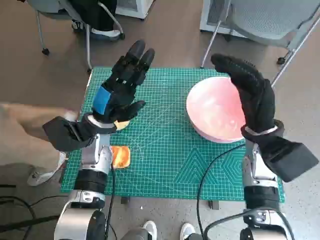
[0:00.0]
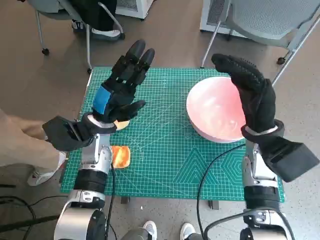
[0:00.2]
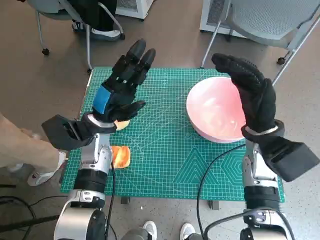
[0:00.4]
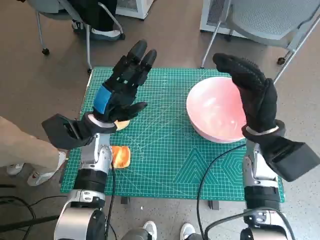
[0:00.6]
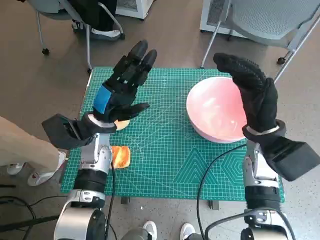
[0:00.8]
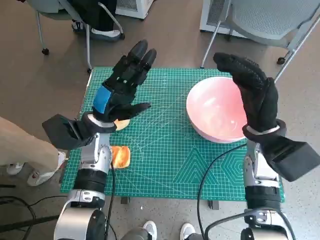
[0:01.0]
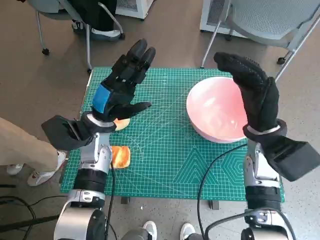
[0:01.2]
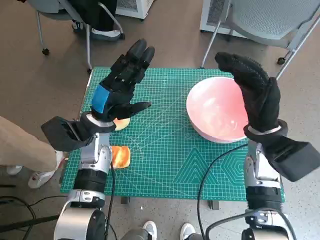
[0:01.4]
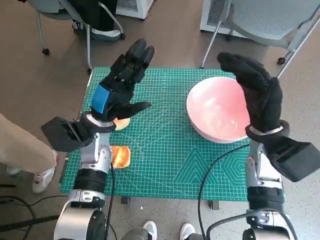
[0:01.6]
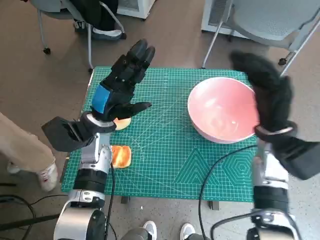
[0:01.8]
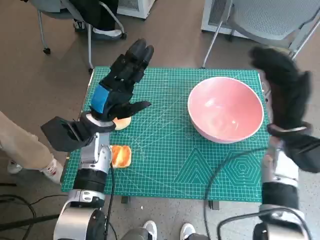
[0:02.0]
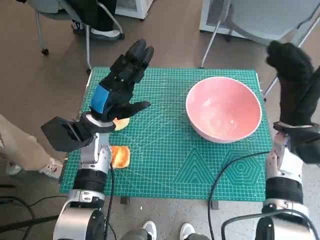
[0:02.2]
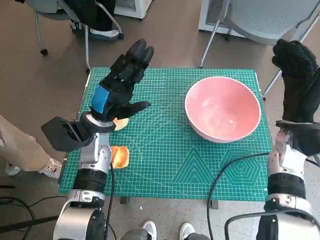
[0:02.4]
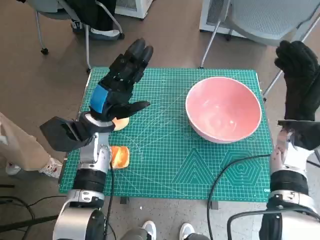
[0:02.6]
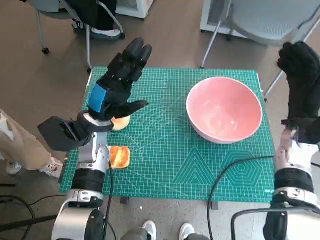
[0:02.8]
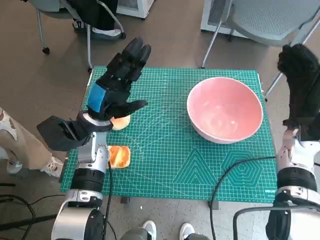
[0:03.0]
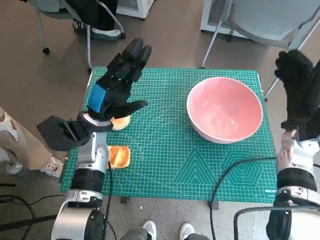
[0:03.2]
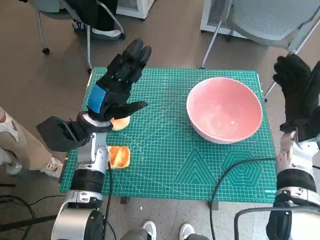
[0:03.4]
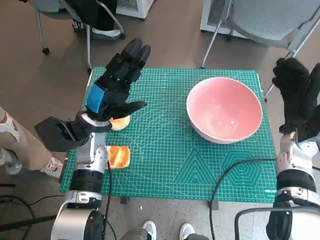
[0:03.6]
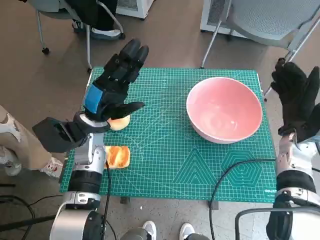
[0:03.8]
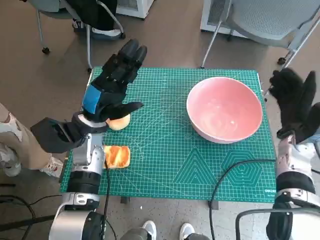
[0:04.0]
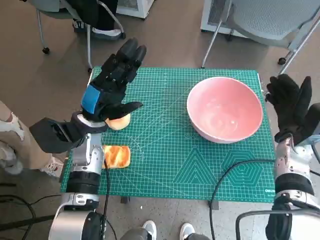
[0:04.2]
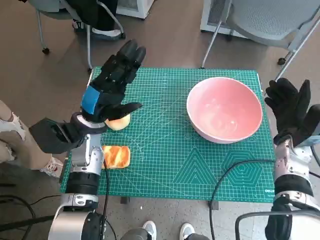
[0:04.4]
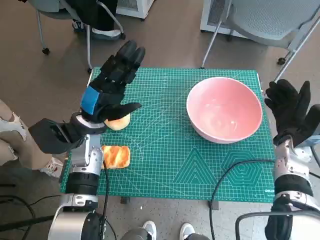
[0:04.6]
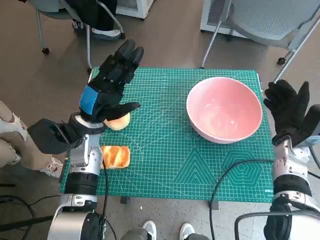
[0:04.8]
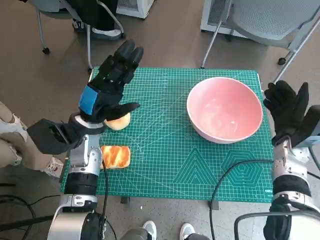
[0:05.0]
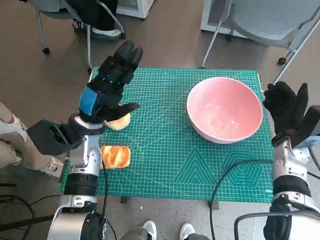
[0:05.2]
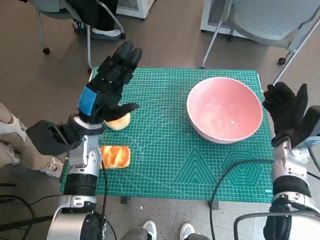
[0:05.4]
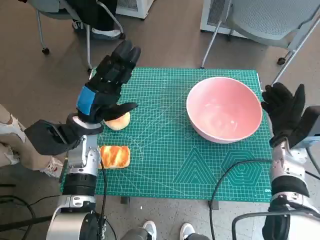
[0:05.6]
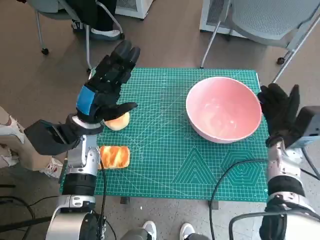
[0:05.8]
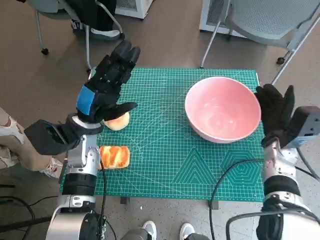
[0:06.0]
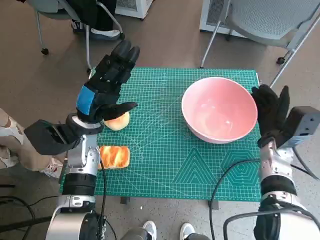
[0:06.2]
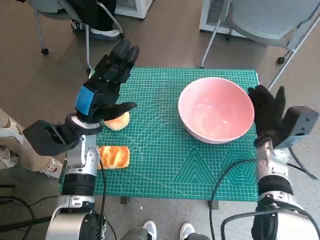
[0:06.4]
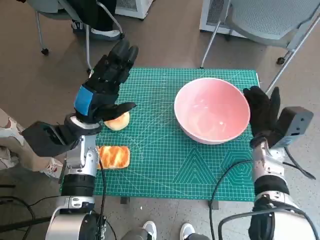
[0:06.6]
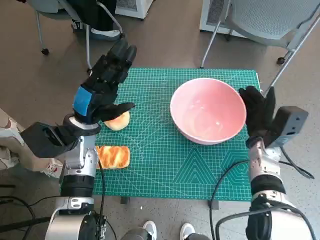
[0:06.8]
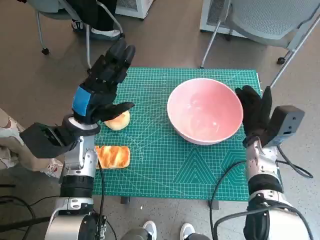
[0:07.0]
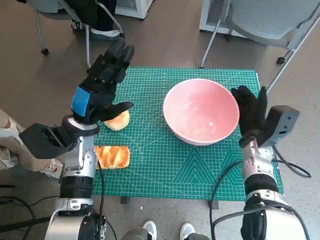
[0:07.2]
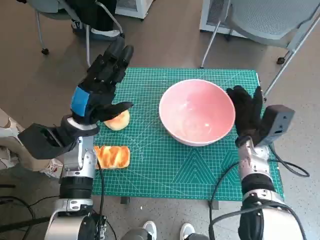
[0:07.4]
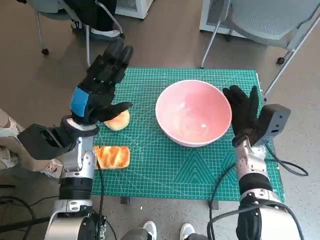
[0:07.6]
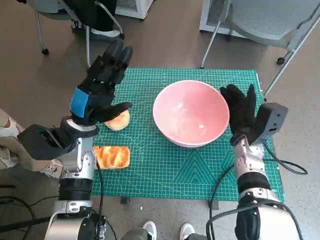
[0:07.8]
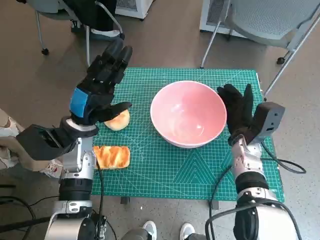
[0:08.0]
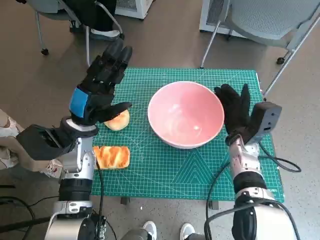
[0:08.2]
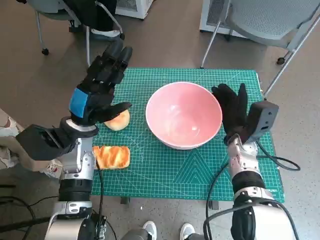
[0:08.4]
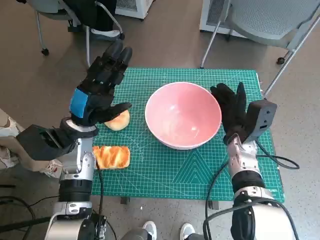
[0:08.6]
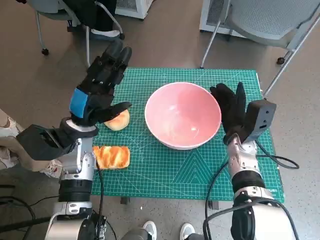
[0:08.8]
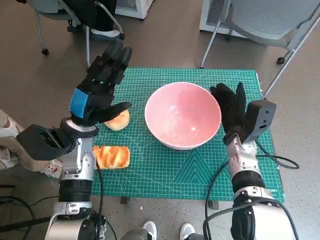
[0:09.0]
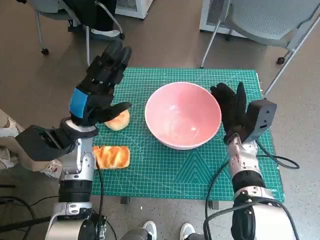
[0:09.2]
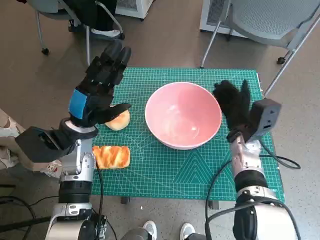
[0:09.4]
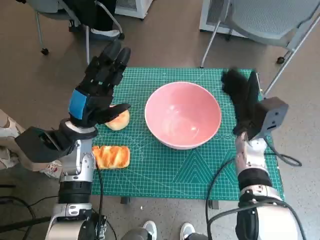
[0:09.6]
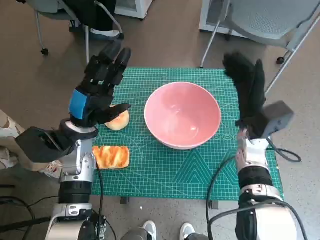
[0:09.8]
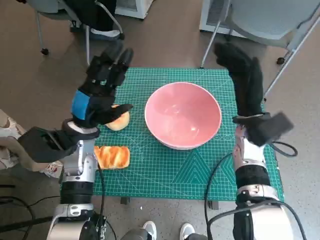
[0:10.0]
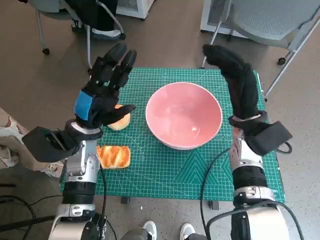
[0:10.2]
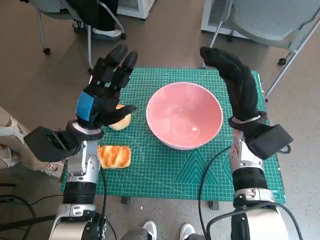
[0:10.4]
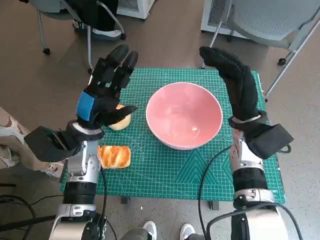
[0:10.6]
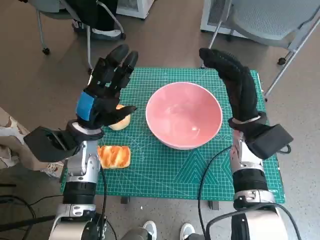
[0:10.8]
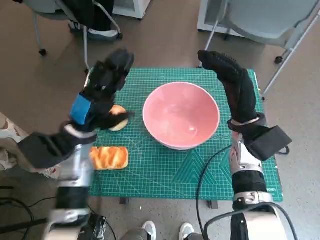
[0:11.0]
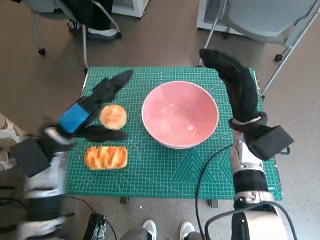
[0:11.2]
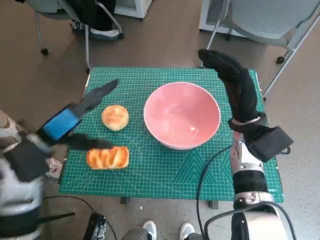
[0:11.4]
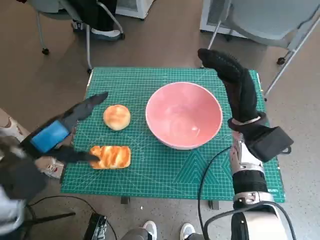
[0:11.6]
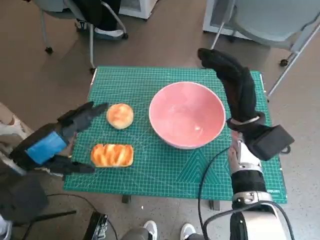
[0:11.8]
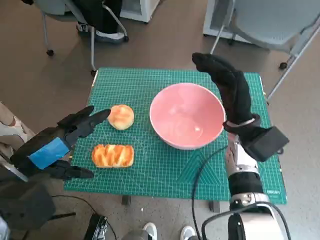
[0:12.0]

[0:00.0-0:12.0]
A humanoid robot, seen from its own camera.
Step, 0:00.0 to 0:09.4: Move the pink bowl to the center of table with right hand.
0:01.6 to 0:03.0: The right hand heads to the right, covering some 10 cm.
0:04.4 to 0:06.0: The hands stay close to where they were, moving slightly.
0:06.0 to 0:07.6: The right hand is displaced to the left by about 5 cm.
0:07.6 to 0:09.0: The hands make only small movements.
0:09.0 to 0:10.4: The right hand shifts approximately 5 cm upward.
0:10.4 to 0:12.0: The left hand heads backward, upward and to the left, covering approximately 15 cm.

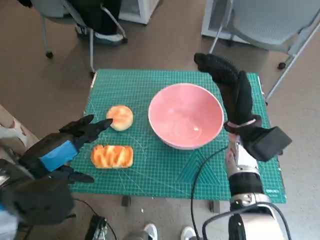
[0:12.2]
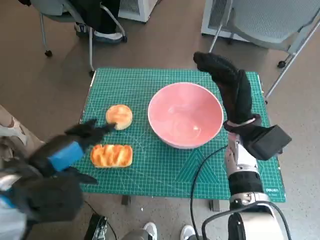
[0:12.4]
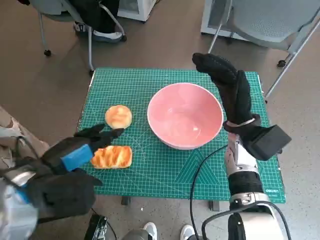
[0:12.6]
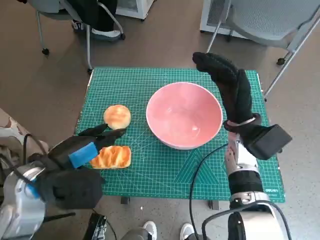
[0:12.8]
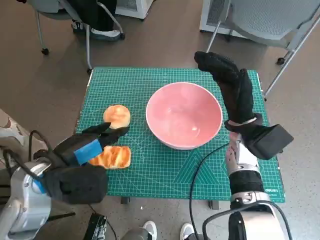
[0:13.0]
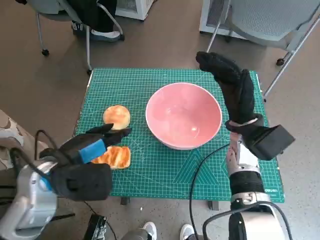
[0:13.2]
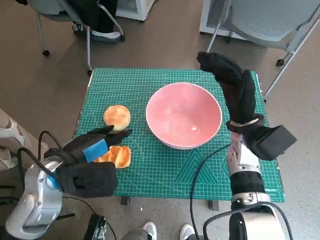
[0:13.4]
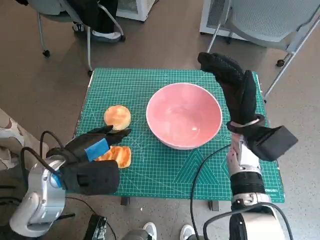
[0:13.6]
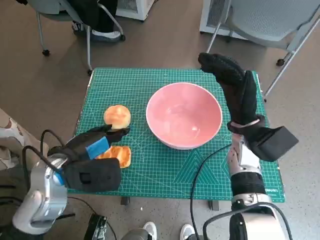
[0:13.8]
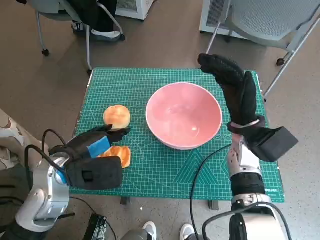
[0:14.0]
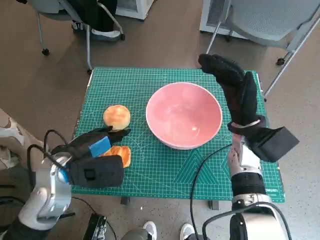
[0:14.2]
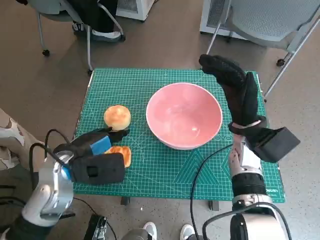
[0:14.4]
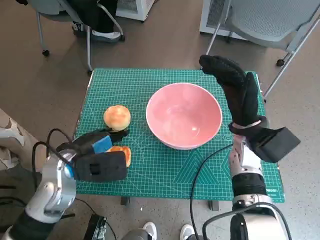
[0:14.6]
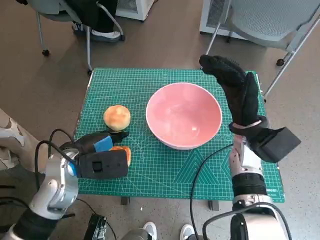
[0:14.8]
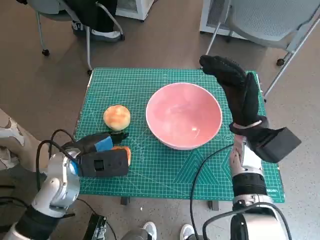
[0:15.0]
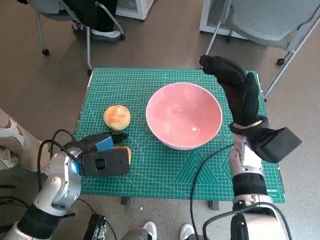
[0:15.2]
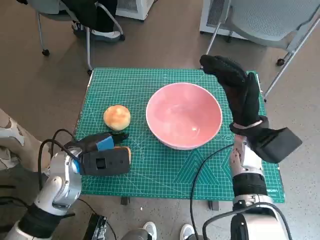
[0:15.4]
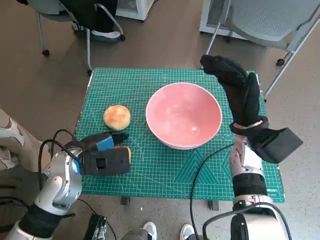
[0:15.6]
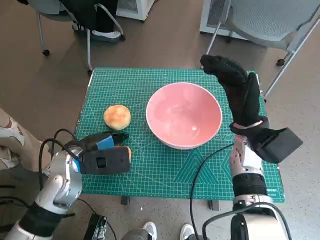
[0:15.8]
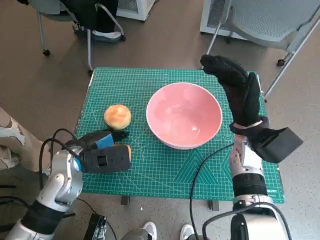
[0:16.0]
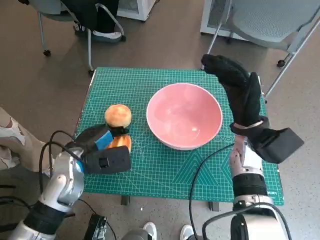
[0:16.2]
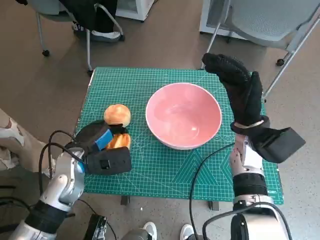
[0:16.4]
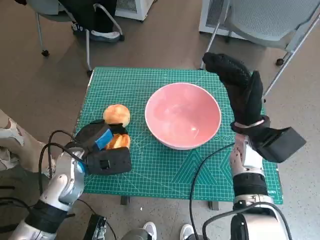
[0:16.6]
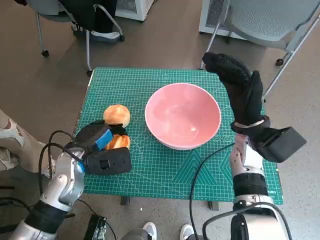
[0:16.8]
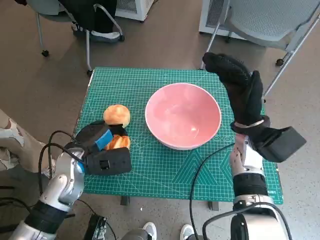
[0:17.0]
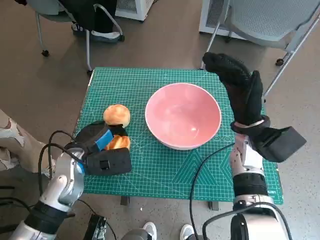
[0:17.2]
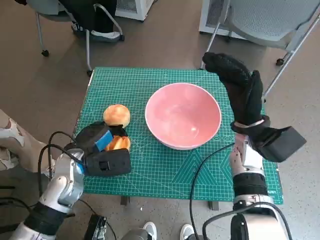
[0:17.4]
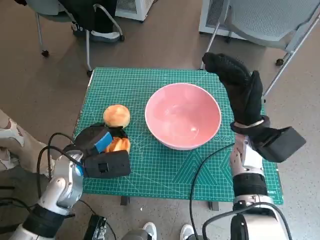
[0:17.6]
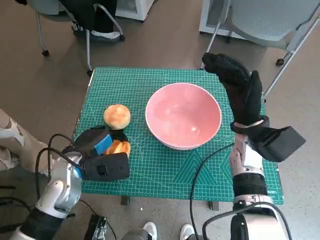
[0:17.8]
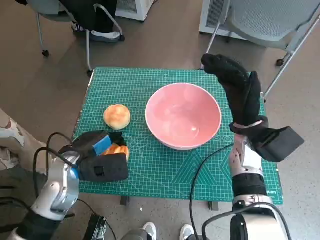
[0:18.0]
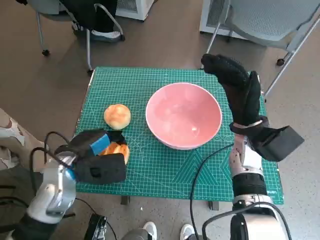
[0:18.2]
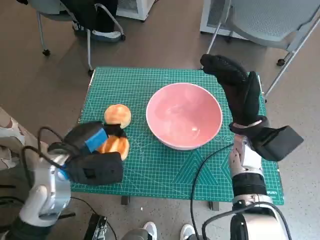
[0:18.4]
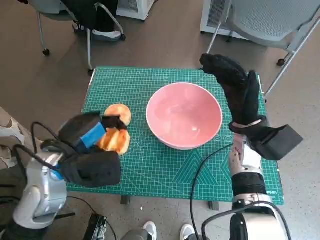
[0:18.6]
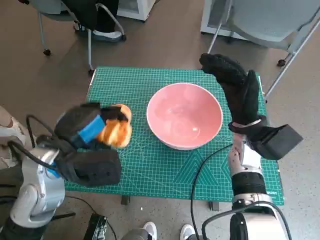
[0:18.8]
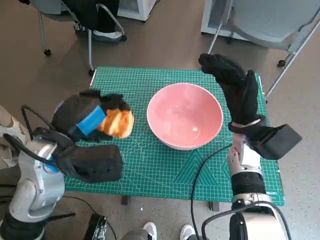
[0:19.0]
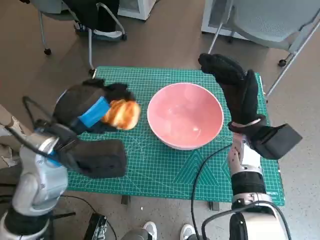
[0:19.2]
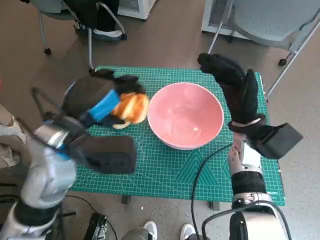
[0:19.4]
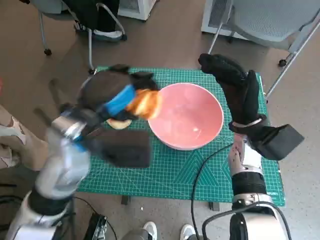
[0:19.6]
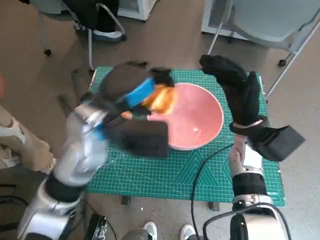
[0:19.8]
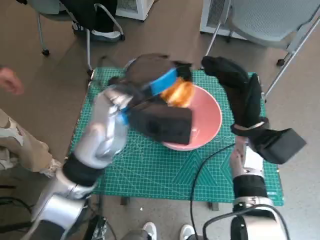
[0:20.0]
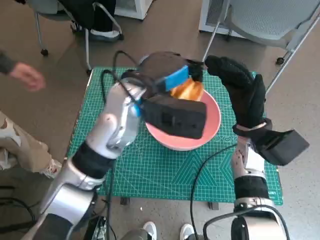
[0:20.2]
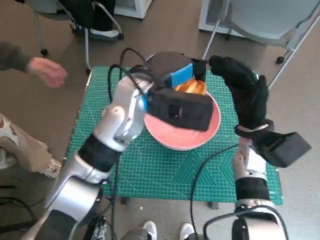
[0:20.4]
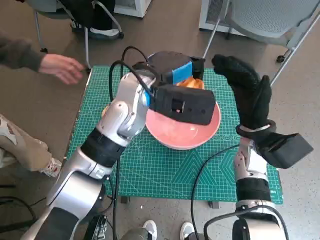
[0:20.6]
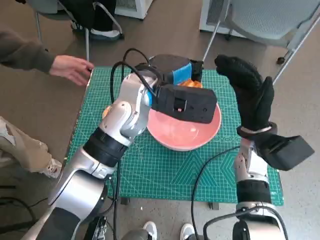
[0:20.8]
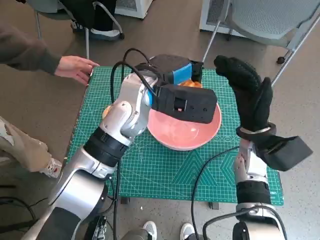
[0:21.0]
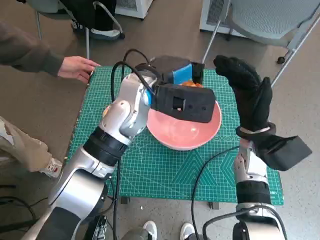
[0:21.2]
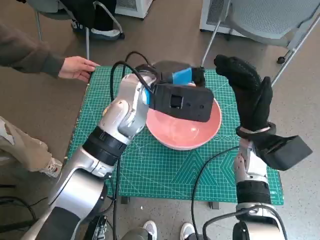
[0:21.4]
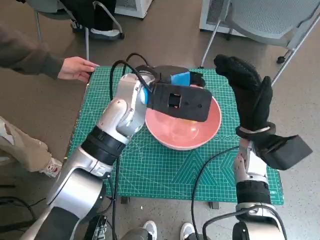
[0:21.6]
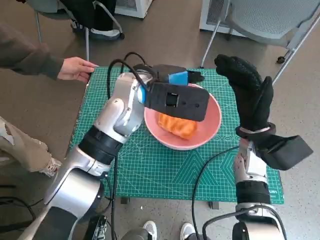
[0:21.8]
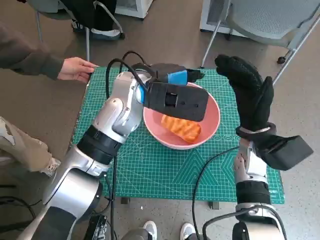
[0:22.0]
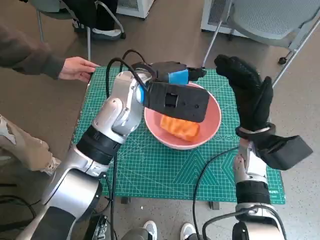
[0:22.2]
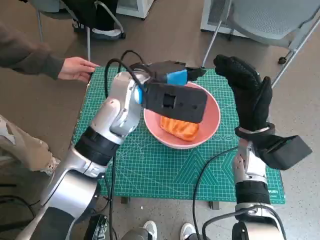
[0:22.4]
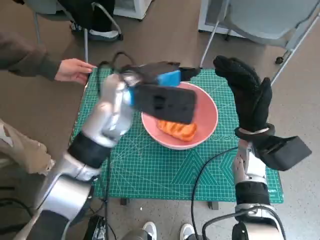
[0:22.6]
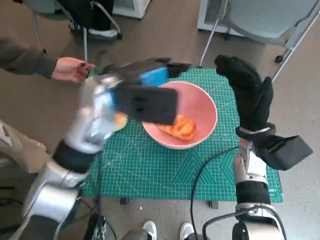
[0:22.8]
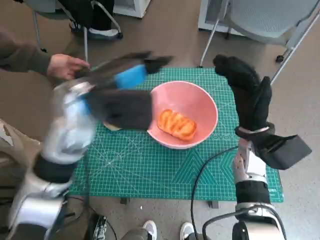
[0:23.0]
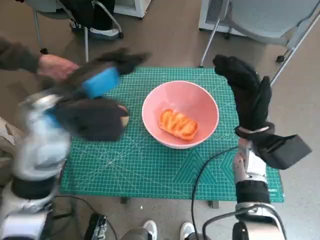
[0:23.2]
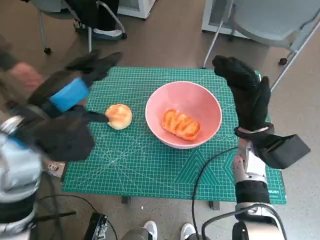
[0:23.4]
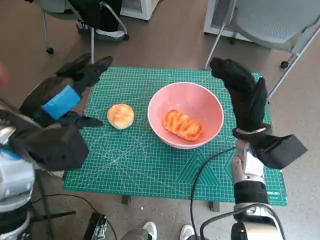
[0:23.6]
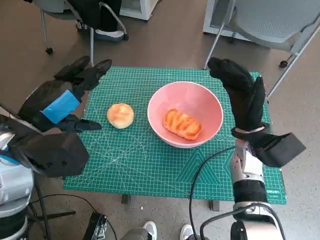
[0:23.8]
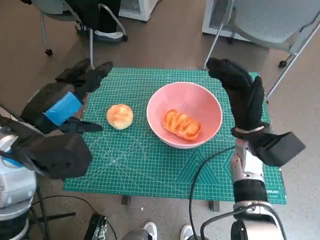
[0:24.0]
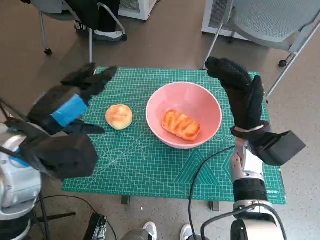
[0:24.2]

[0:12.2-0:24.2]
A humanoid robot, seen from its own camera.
Step, 0:12.2 to 0:16.0: Grasp the long bread with left hand.
Step, 0:16.2 to 0:22.0: Place the long bread in pink bowl with left hand.
0:12.2 to 0:13.8: The left hand goes approximately 5 cm downward.
0:13.8 to 0:15.2: The hands make only small movements.
0:15.2 to 0:18.2: There are only small adjustments of the hands.
0:18.2 to 0:19.8: The left hand shifts about 15 cm upward and to the right.
0:19.8 to 0:21.2: The left hand shifts approximately 10 cm forward and to the right.
0:22.6 to 0:24.2: The left hand is displaced to the left and backward by about 15 cm.
